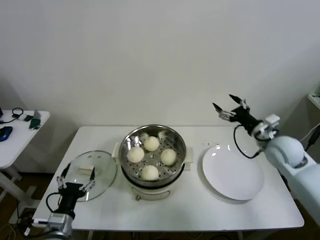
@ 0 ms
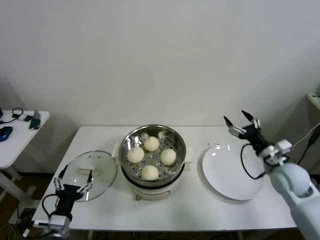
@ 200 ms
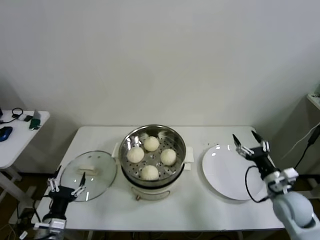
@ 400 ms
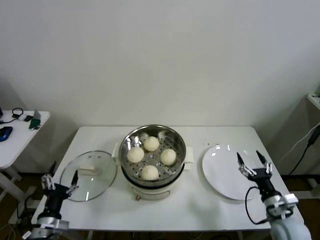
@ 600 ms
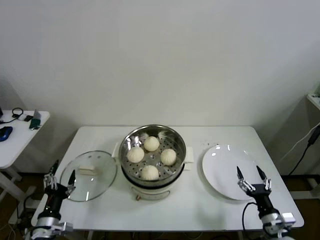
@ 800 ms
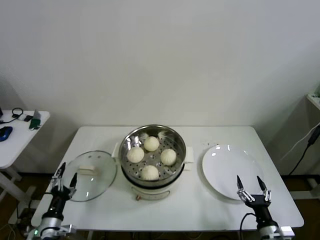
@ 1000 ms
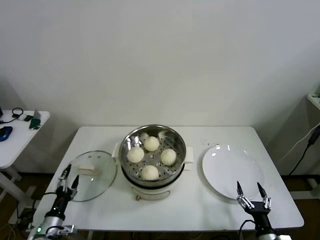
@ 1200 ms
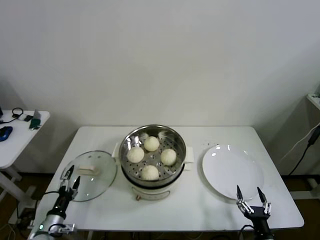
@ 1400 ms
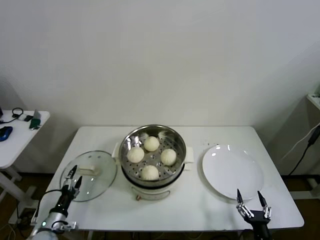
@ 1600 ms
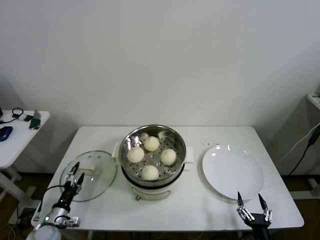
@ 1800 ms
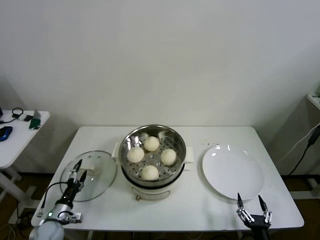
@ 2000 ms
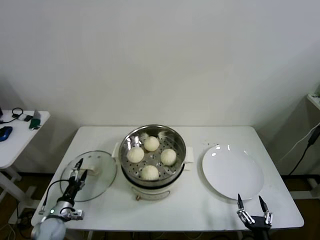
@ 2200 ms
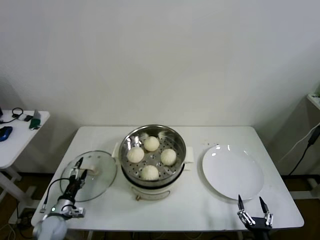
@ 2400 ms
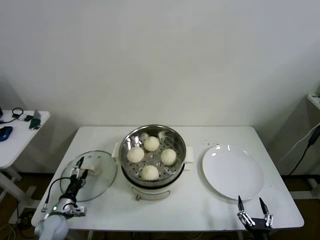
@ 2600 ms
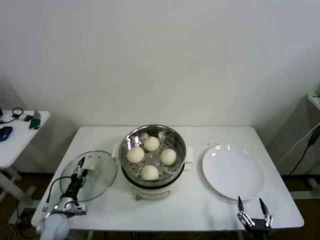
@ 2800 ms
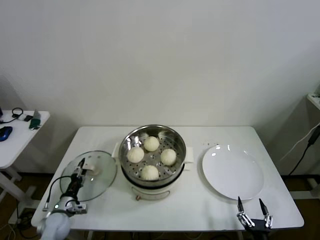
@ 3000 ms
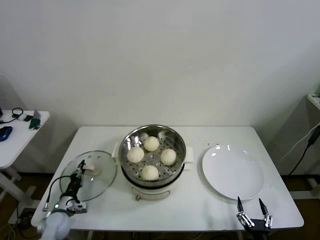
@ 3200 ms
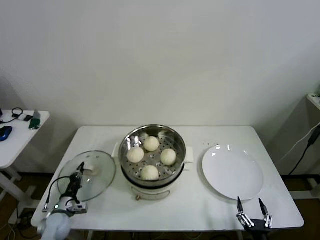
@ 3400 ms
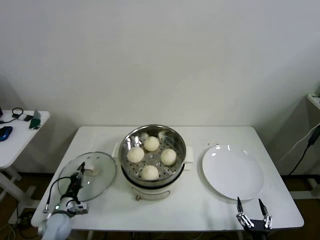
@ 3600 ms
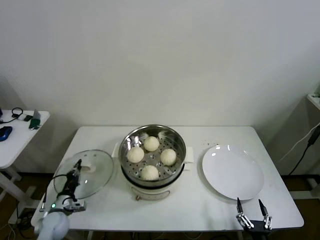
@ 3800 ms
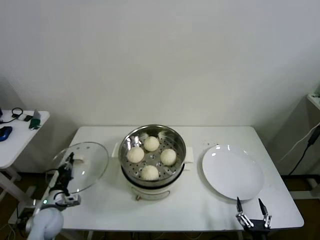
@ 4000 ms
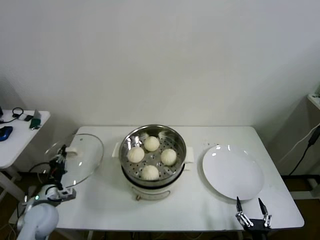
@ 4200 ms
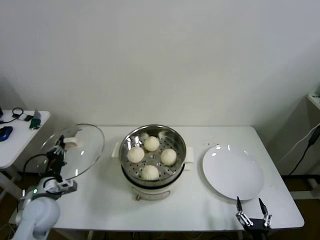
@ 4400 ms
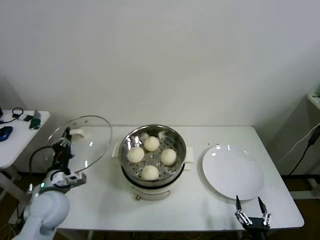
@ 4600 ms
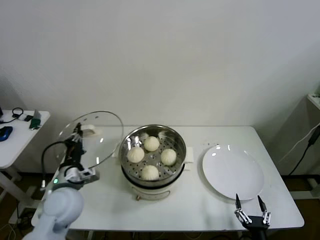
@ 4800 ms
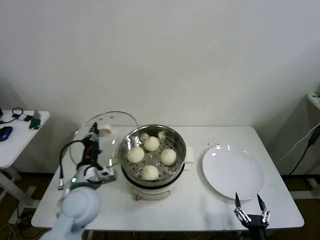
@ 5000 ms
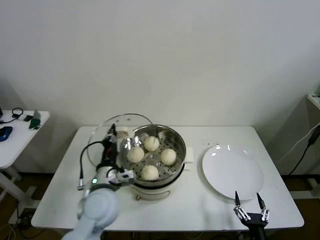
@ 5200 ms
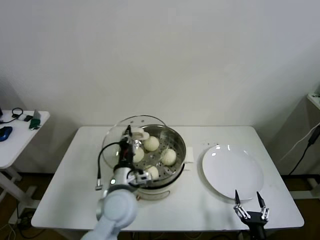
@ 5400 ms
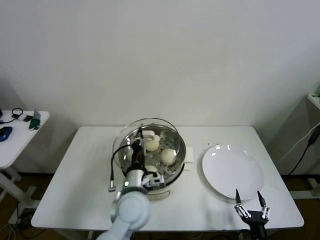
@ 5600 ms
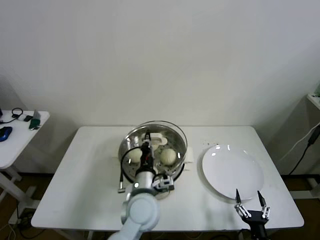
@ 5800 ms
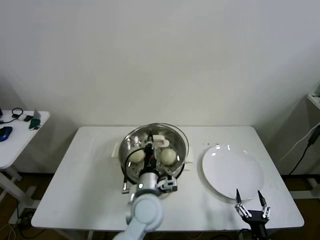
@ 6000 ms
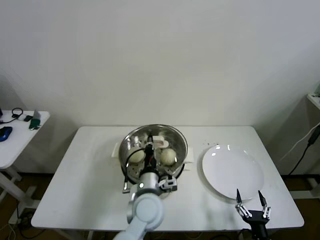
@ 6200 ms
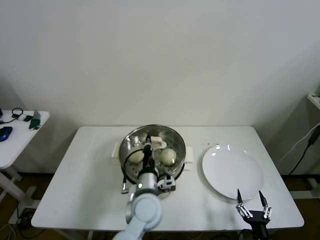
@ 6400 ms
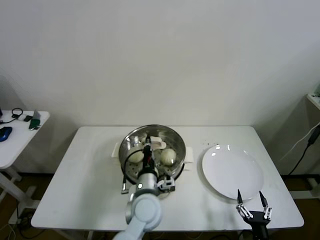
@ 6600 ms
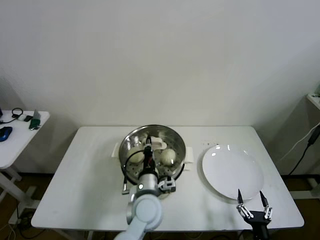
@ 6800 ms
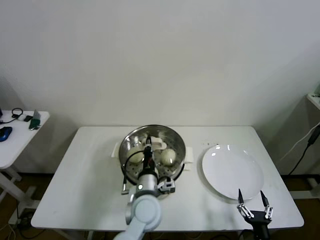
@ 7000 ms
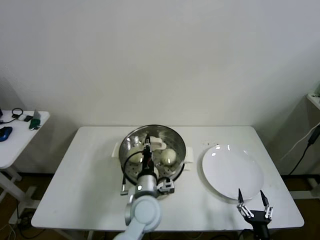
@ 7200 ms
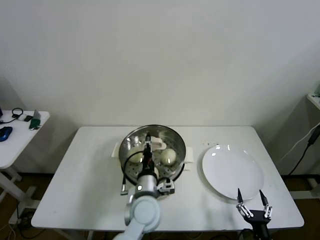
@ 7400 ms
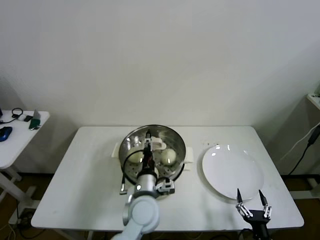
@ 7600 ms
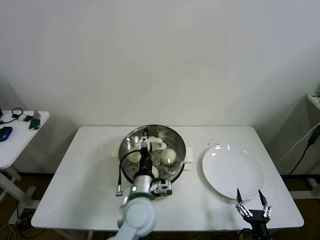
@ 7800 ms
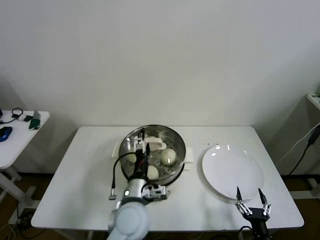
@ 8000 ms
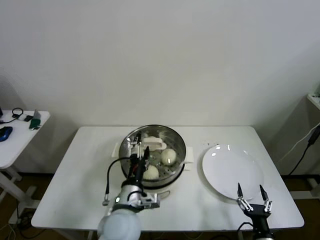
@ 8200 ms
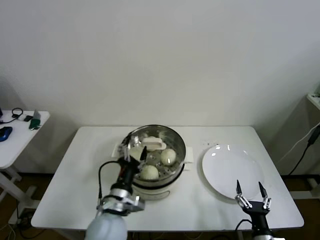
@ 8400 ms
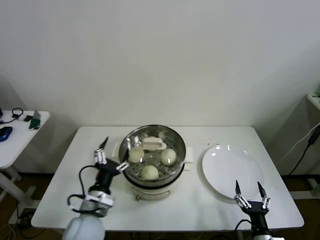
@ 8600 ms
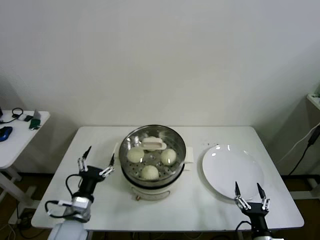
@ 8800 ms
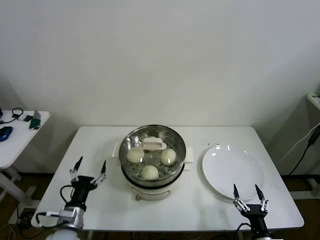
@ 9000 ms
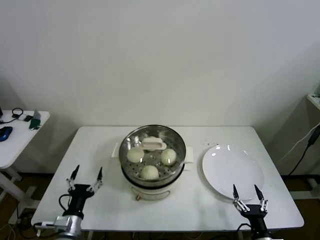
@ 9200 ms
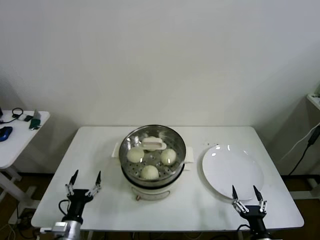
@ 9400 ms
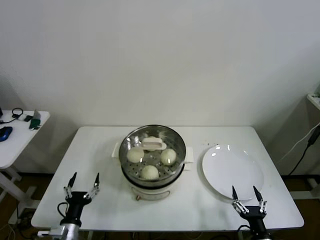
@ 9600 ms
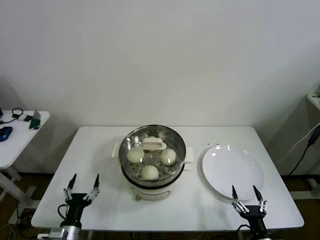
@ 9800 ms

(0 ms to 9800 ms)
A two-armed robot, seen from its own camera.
Step, 0 ms - 3400 ms: Grasp the pot lid with left gripper.
Step, 3600 ms - 7200 ms: Place the pot lid on the steamer with left gripper.
0 ms - 1400 ms: The left gripper moves downward and to the left, about 15 cm. Meanwhile the right gripper travels backward and downward by some 40 cm.
1400 ms - 2800 ms: The left gripper heads forward, covering approximately 5 cm.
2800 ms - 4200 ms: The left gripper travels upward by roughly 10 cm, and closes up.
4200 ms - 5600 ms: The left gripper moves to the right, approximately 30 cm.
5600 ms - 7000 ms: The left gripper moves about 5 cm.
7000 ms - 8400 ms: The left gripper shifts roughly 10 cm to the left and backward, and opens up.
8400 ms - 9800 ms: The left gripper moves to the left and downward, approximately 25 cm.

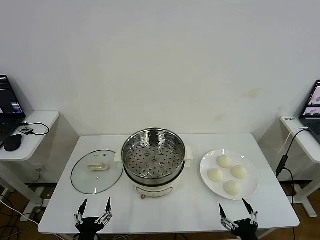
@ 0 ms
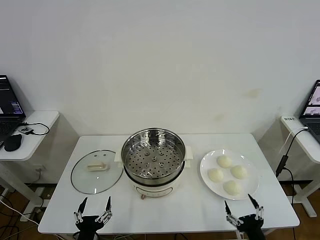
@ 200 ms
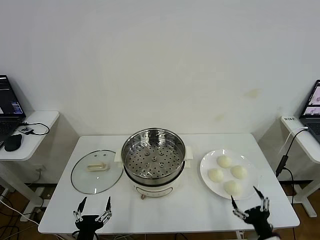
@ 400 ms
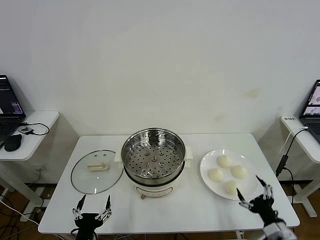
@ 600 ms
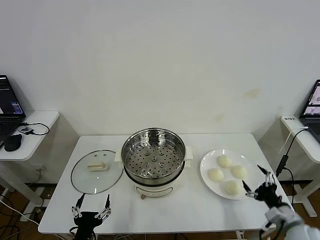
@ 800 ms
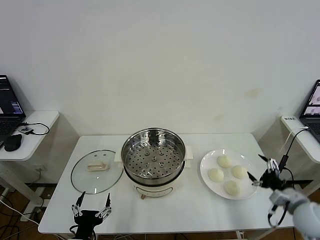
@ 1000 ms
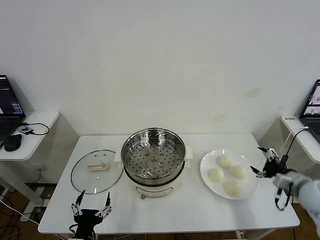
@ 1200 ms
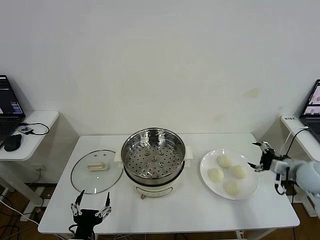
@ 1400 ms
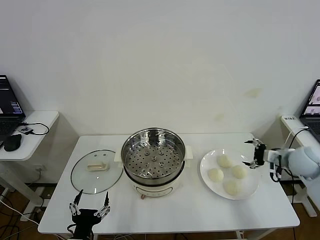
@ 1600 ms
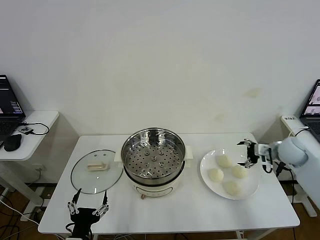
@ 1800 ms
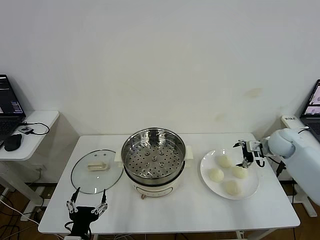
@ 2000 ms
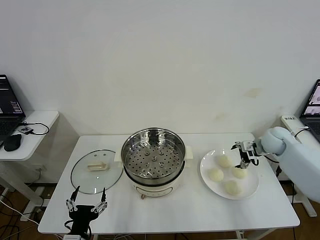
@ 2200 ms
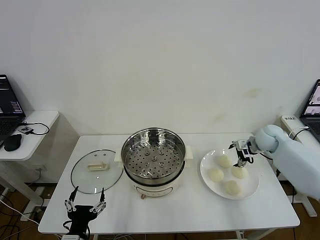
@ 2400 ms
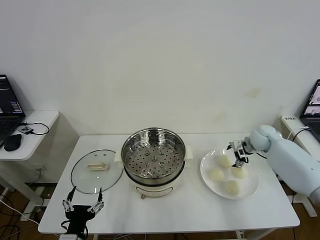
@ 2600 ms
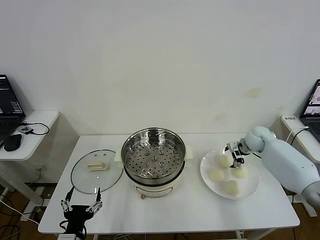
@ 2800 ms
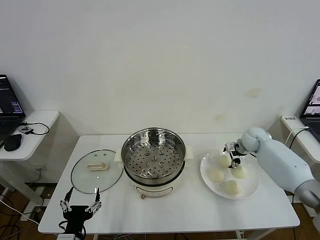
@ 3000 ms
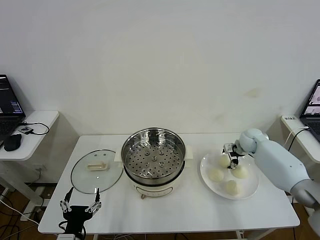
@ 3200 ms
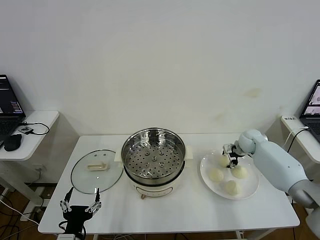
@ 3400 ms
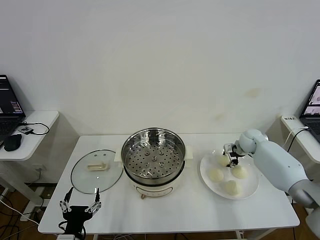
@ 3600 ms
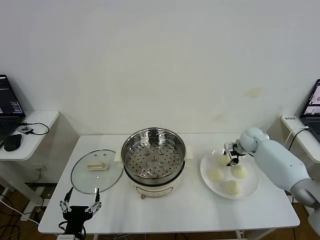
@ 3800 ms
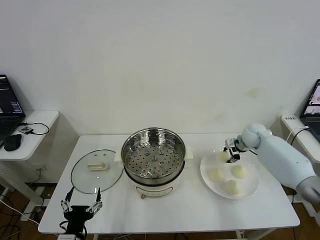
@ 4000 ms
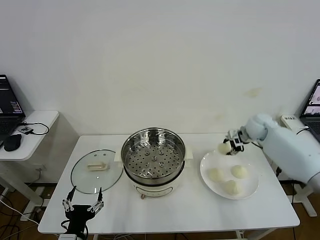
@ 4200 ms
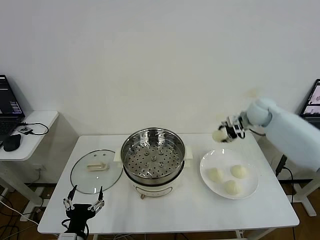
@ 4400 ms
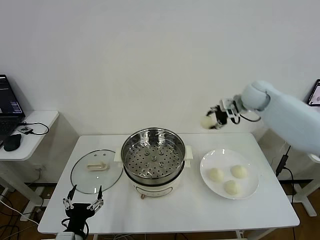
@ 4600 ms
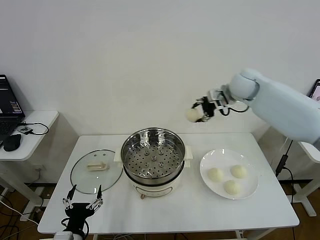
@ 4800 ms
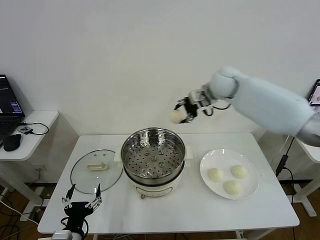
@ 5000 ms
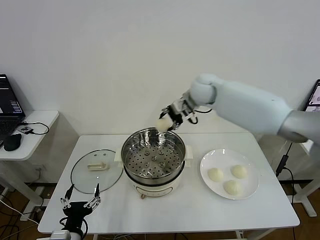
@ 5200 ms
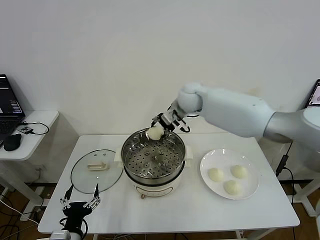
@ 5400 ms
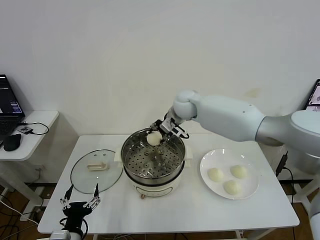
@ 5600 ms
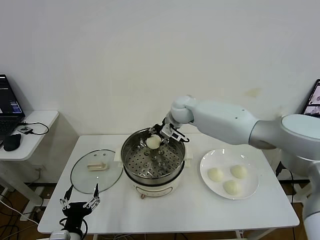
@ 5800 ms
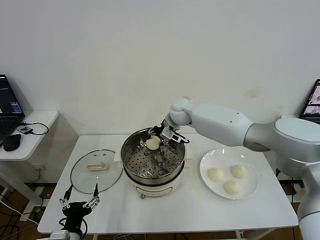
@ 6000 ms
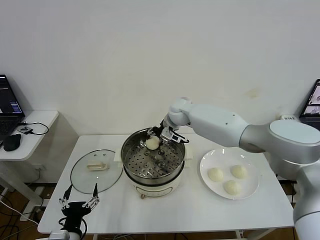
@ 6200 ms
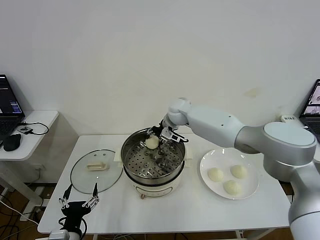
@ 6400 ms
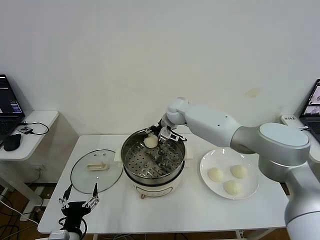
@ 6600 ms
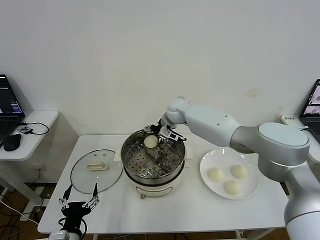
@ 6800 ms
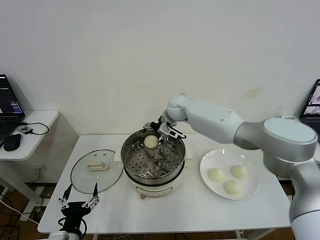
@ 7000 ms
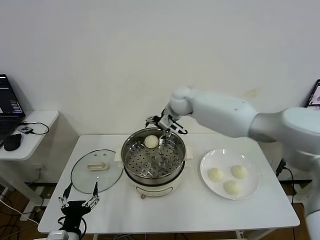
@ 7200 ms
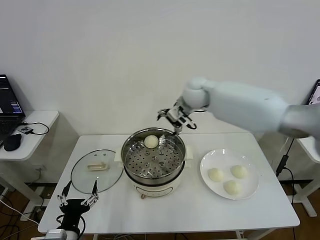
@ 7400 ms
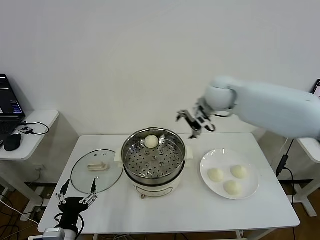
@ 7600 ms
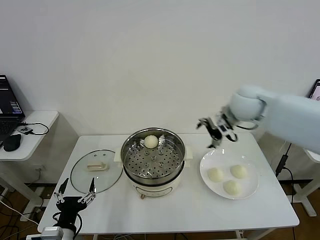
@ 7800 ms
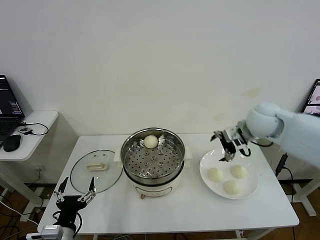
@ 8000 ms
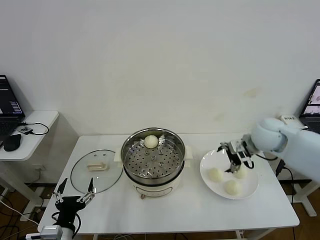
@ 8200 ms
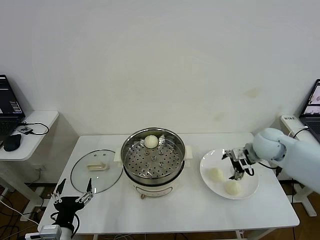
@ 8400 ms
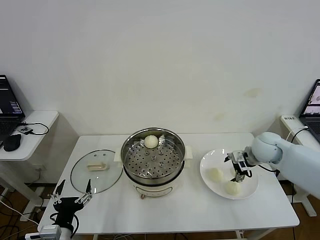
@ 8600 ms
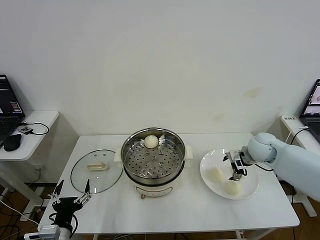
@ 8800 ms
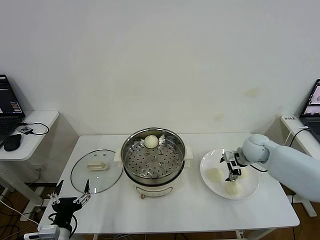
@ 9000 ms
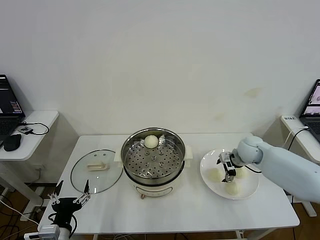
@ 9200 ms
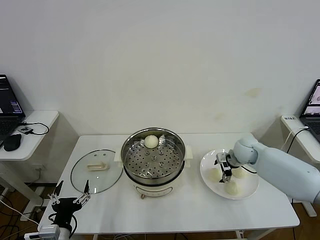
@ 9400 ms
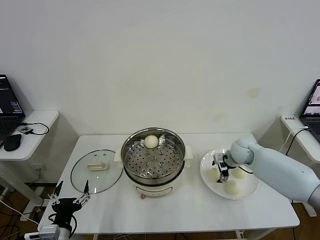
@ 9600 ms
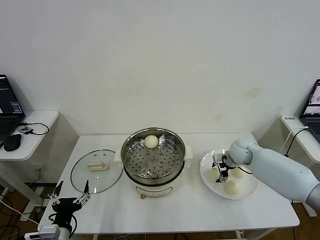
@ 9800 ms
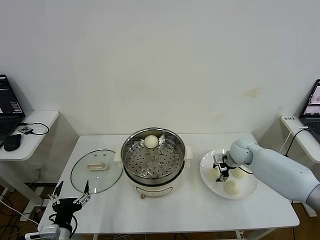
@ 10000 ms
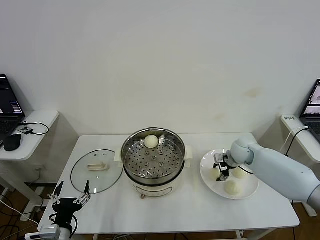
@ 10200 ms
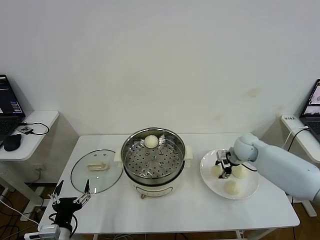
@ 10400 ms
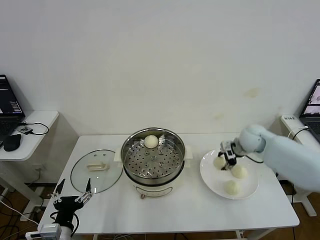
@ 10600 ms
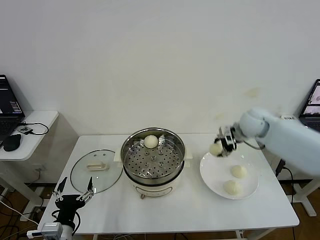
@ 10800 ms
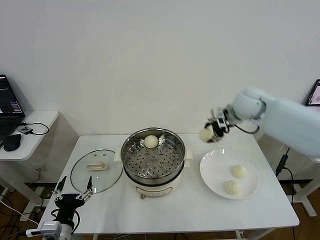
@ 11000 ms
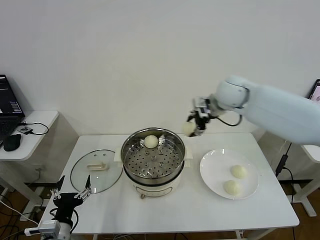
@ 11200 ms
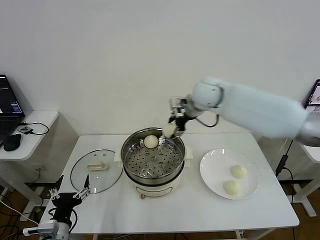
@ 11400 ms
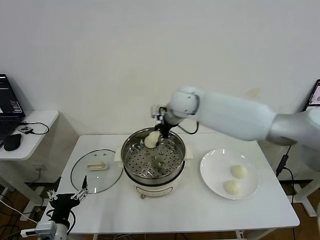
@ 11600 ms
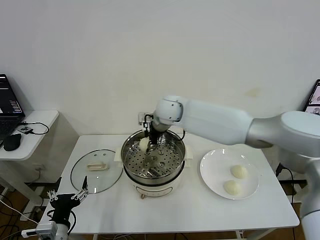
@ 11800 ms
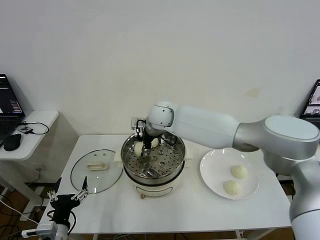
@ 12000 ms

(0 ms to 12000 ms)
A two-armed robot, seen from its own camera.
Step, 0 ms - 3600 ms: Grasp the baozi in the plate with right gripper.
Step, 4000 ms - 6800 ms: Place the baozi on the steamer with right gripper.
Step, 7000 ms - 10000 ms: Grasp the baozi in the plate with right gripper.
1600 ms - 3000 ms: The right gripper is displaced forward, to the left and downward by some 15 cm.
3000 ms - 4400 ms: The right gripper moves upward, some 20 cm, and closes.
4400 ms - 6000 ms: The right gripper shifts some 25 cm to the left.
6000 ms - 7600 ms: The right gripper is displaced to the right, upward and backward by approximately 20 cm, and opens up.
7600 ms - 9000 ms: The right gripper goes approximately 25 cm downward and to the right.
9000 ms - 10400 ms: The right gripper closes its fingers.
10400 ms - 12000 ms: The right gripper shifts some 35 cm to the left.
